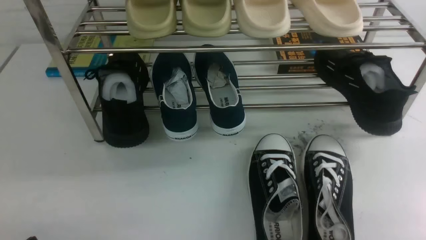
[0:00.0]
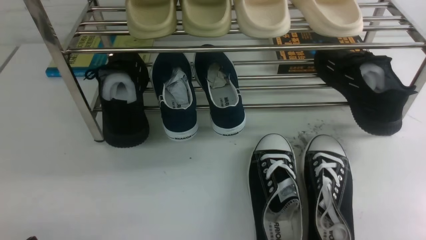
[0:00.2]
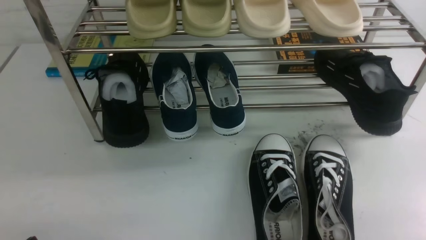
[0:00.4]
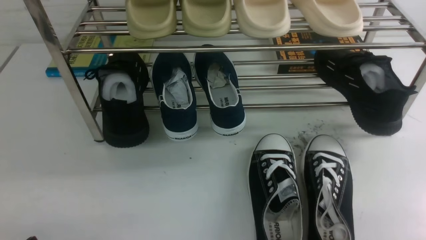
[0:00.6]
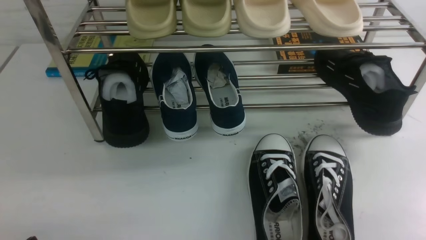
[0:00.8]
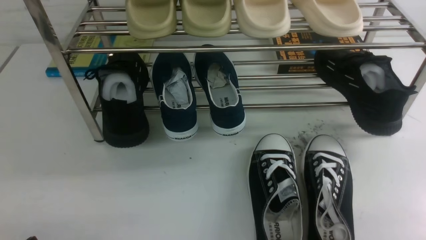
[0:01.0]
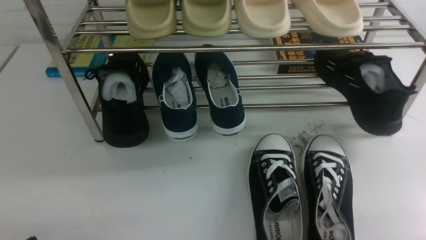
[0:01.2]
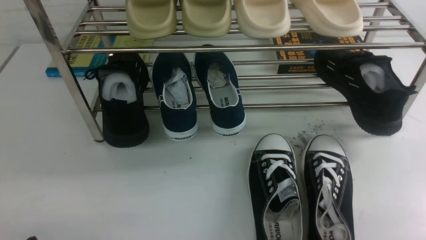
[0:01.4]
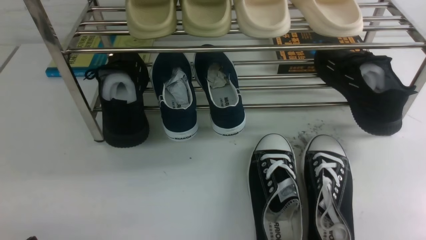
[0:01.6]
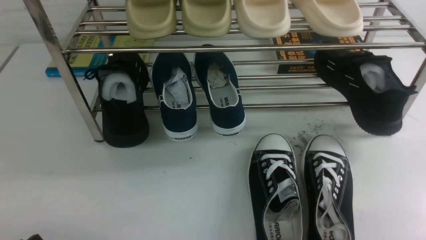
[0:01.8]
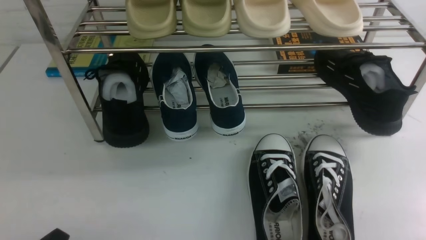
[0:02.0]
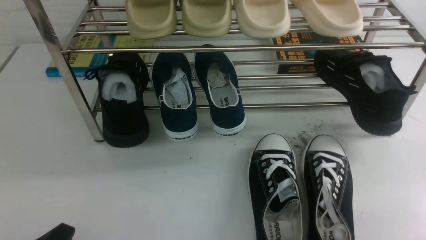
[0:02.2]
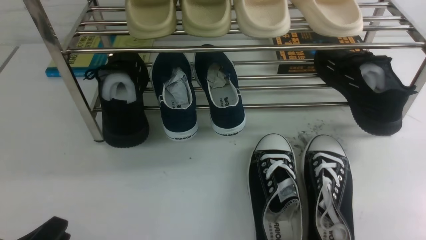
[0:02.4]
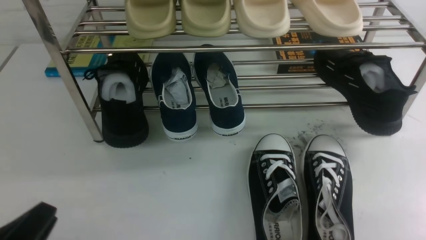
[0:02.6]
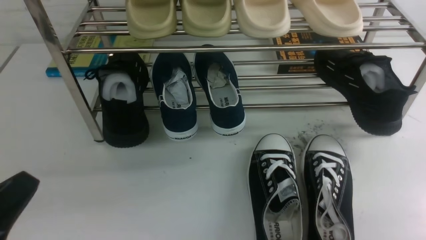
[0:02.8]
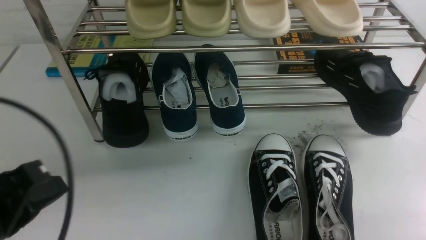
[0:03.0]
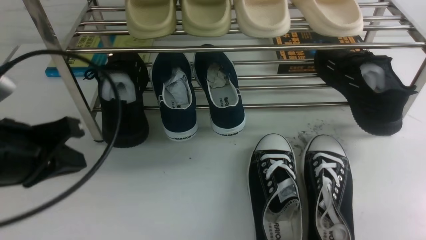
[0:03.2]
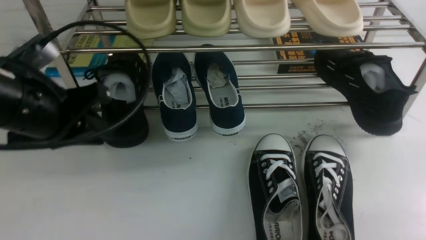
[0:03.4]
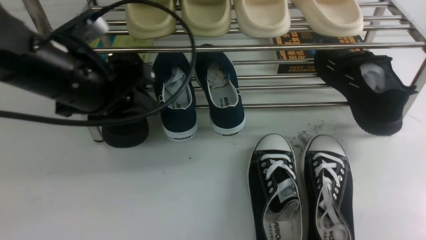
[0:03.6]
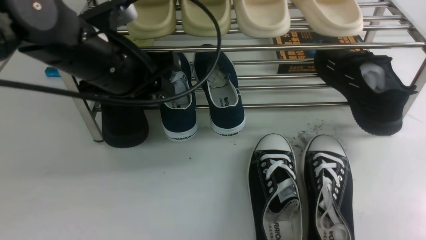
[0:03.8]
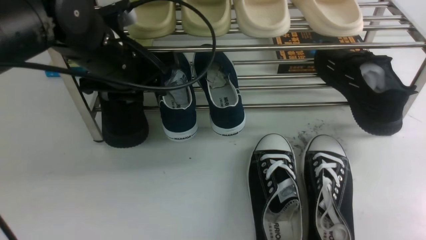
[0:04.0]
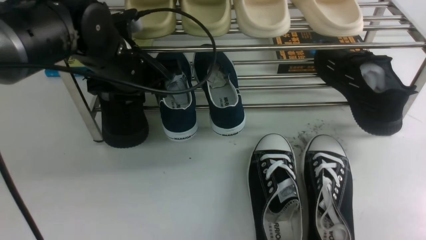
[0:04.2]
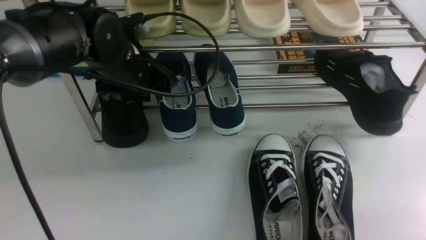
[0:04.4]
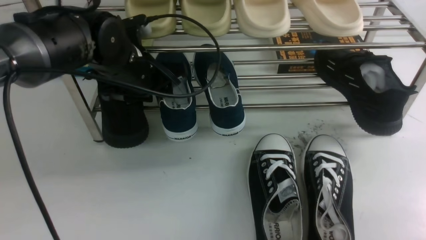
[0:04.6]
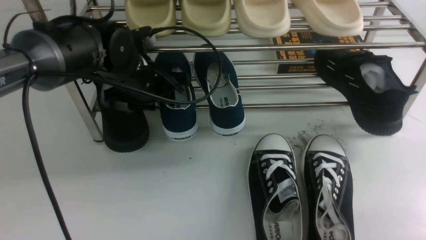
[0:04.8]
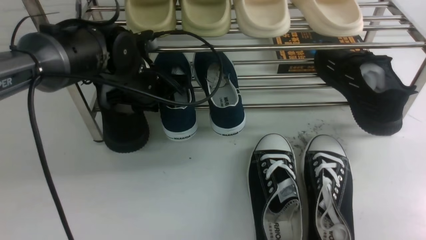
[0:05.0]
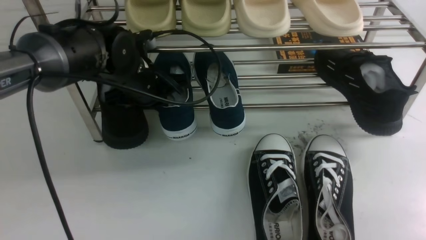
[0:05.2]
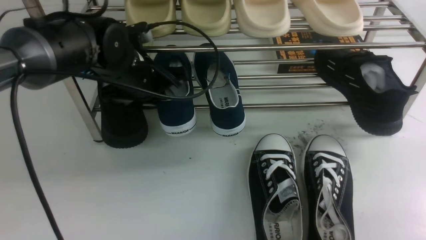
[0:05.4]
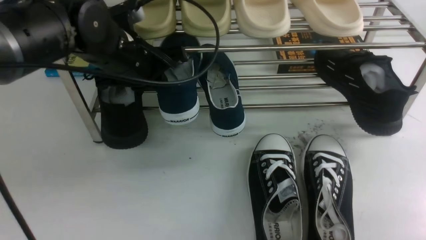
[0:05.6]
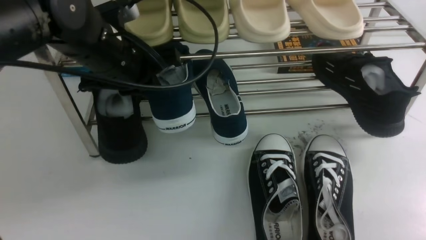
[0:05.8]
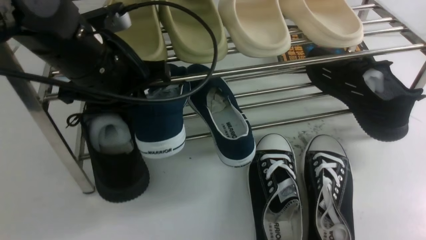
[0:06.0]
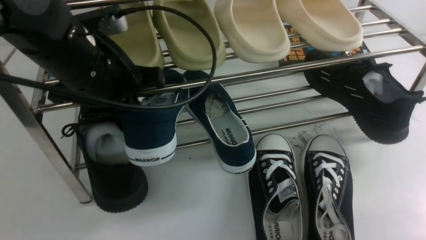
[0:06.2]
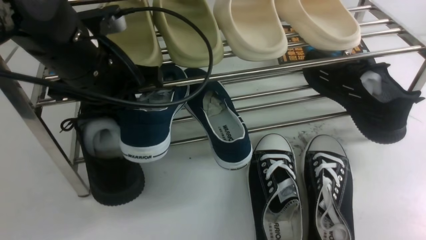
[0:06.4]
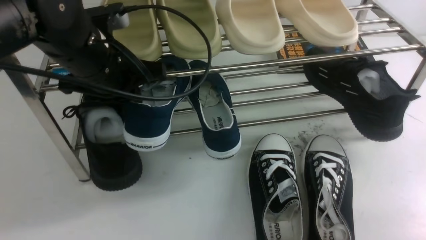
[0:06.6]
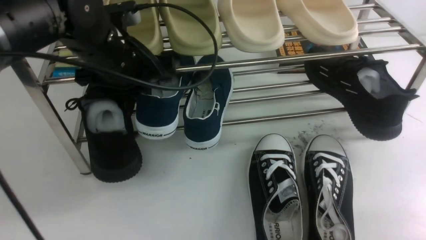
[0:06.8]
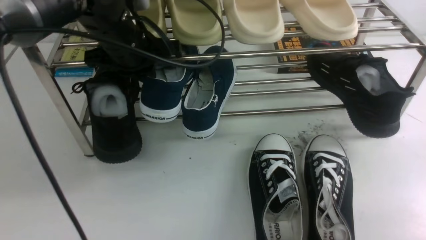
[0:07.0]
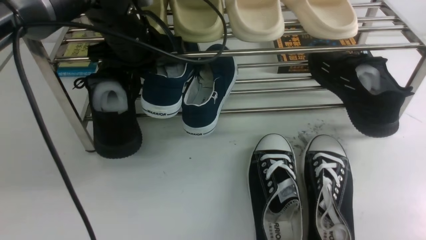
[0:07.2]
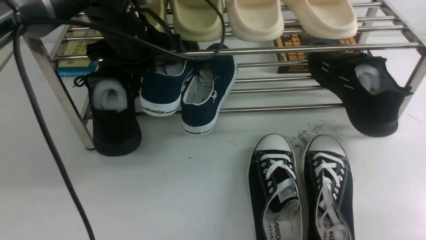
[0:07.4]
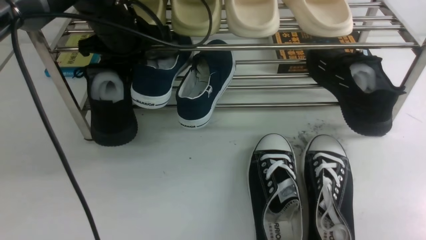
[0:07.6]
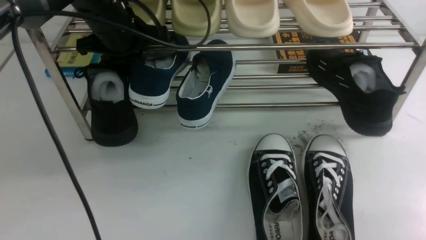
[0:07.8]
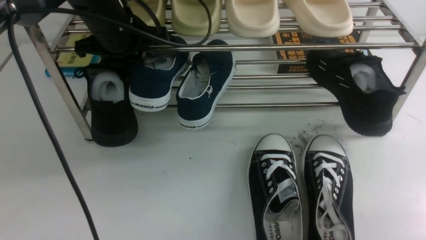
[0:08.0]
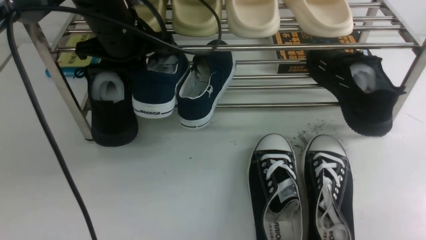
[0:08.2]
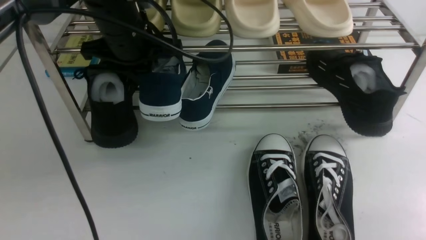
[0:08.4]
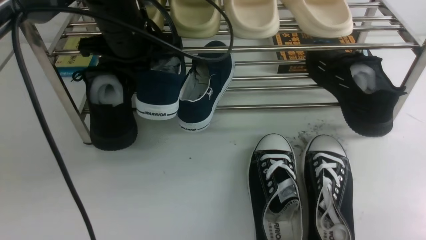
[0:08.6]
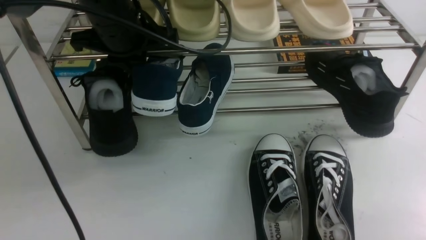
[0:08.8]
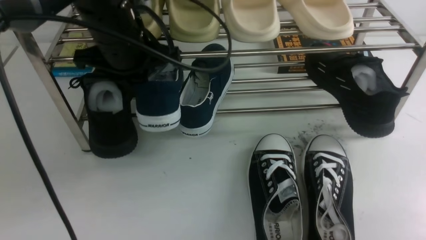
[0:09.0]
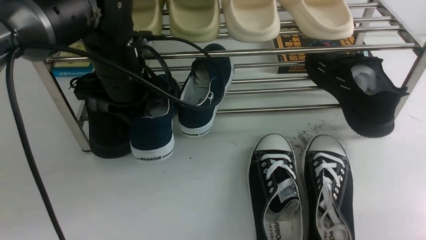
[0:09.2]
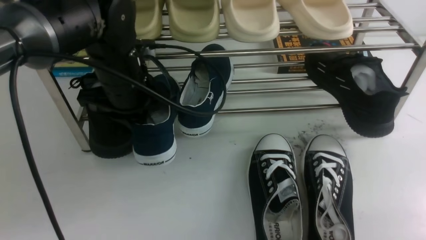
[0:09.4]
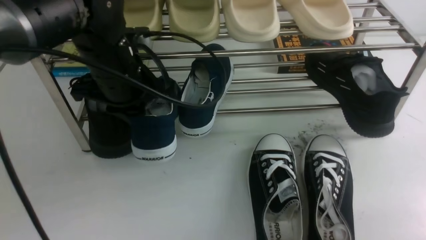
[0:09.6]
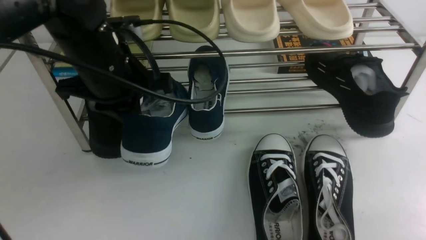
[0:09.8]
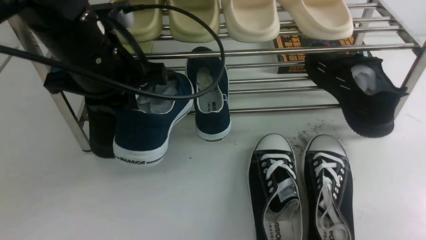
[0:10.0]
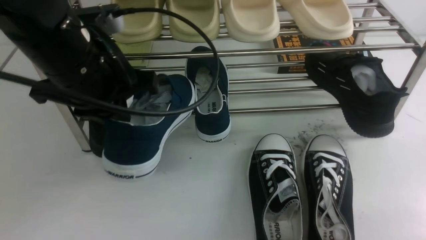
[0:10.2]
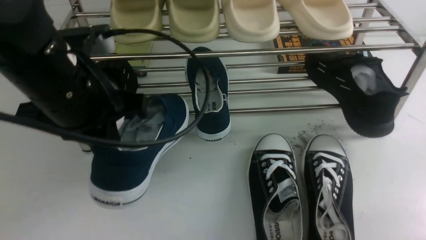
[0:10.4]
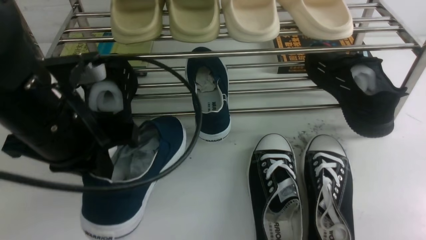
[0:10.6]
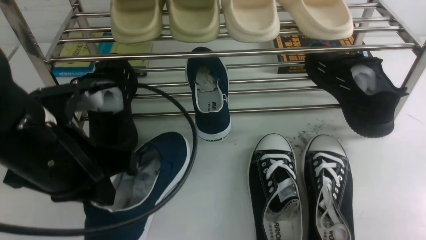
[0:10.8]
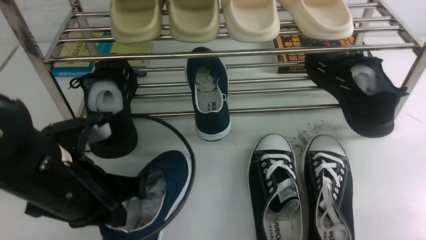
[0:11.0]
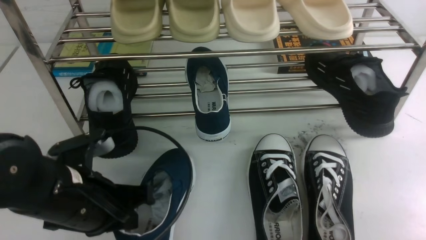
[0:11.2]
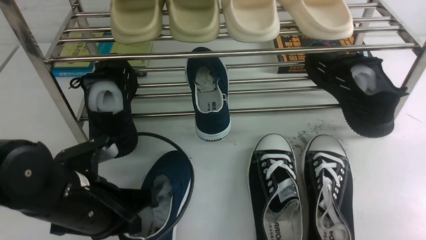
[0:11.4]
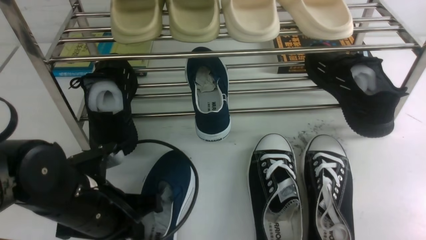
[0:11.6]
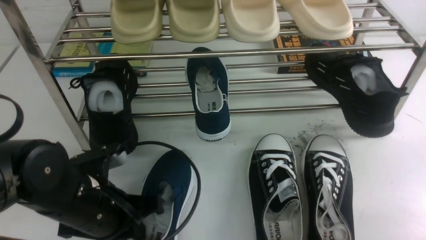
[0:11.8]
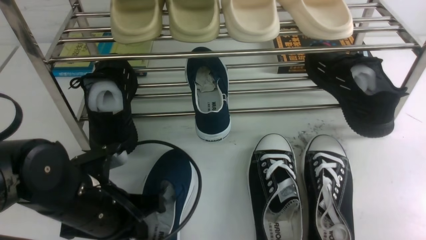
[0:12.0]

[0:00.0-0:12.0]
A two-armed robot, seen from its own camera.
Step, 0:00.0 to 0:05.6: use the left arm to clamp a shoe on the left side of the shoe rack.
0:00.0 to 0:01.6: The two grippers keep their place.
0:01.6 to 0:03.0: The left gripper is displaced upward and forward by roughly 15 cm, and closes up.
0:03.0 to 0:04.4: The left gripper is displaced forward and to the right by some 25 cm, and opens up.
0:04.4 to 0:06.0: The left gripper goes roughly 10 cm backward and upward, and closes up.
0:06.0 to 0:07.6: The left gripper moves forward, approximately 10 cm.
0:07.6 to 0:09.0: The left gripper heads backward, covering some 5 cm.
0:09.0 to 0:10.4: The left gripper moves backward, some 10 cm.
0:10.4 to 0:12.0: The left gripper goes roughly 15 cm downward.

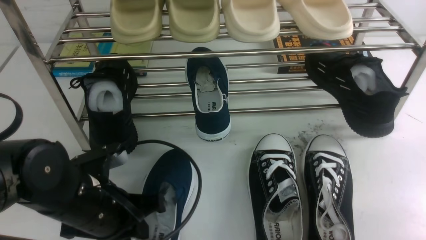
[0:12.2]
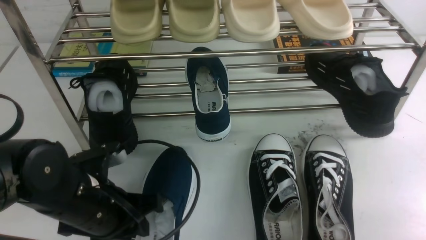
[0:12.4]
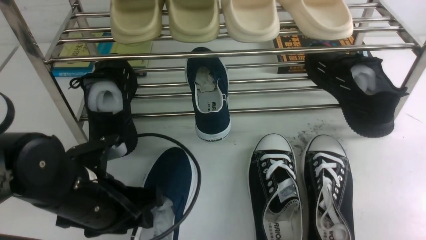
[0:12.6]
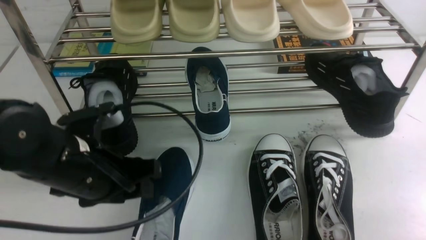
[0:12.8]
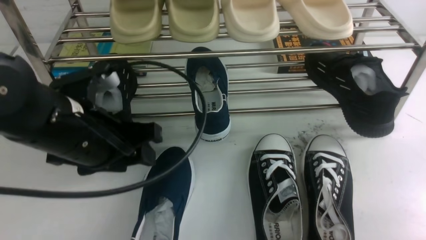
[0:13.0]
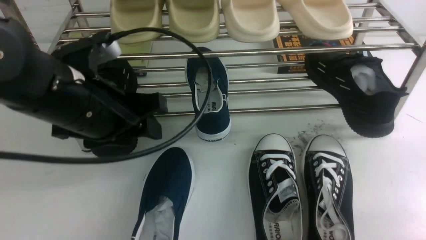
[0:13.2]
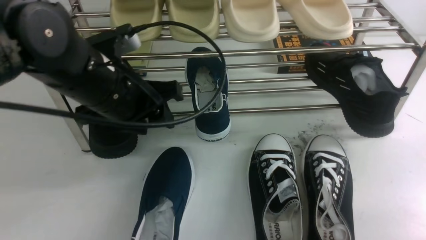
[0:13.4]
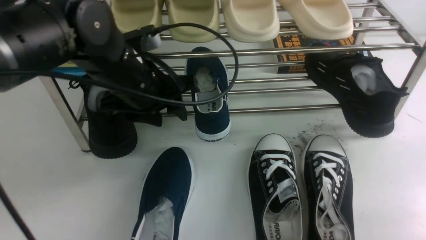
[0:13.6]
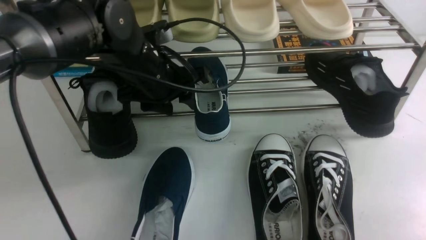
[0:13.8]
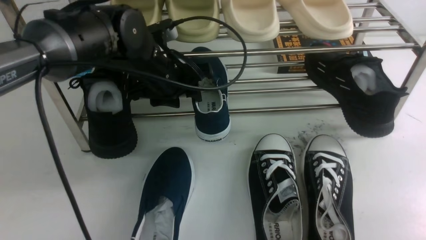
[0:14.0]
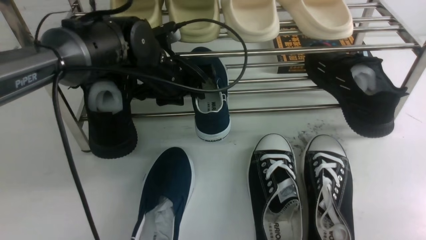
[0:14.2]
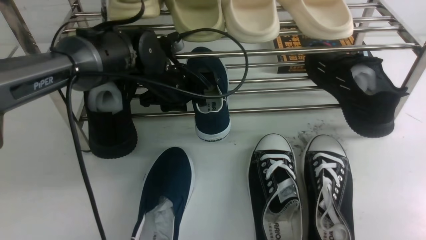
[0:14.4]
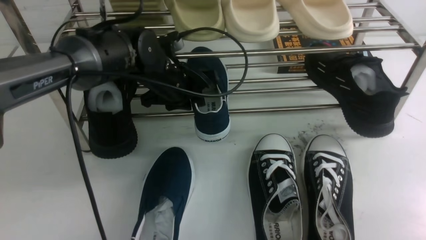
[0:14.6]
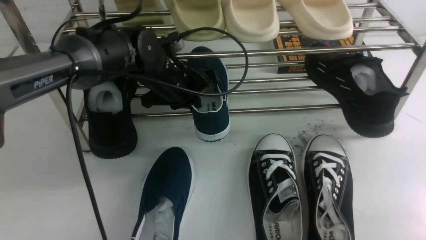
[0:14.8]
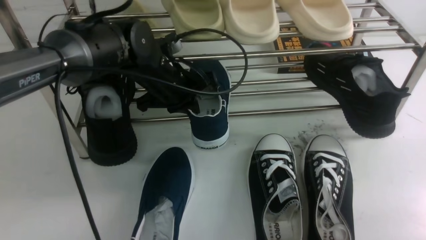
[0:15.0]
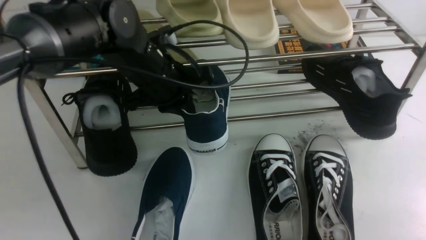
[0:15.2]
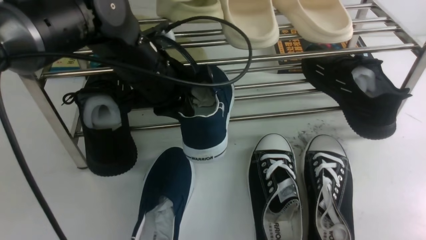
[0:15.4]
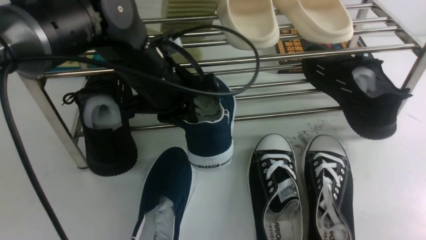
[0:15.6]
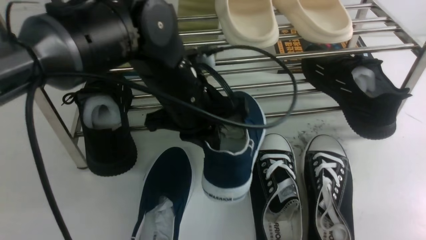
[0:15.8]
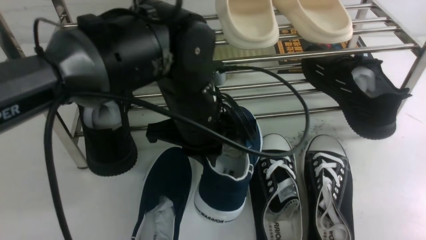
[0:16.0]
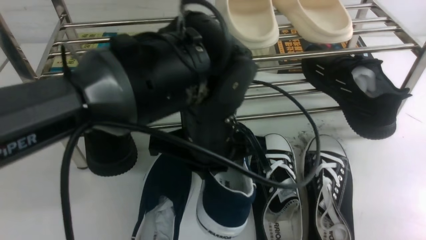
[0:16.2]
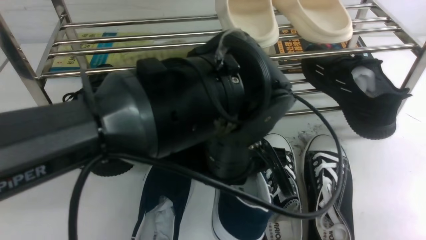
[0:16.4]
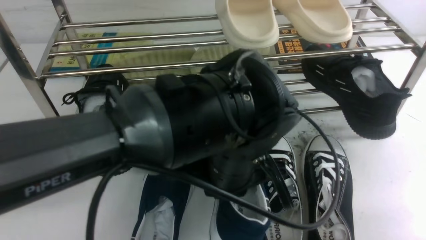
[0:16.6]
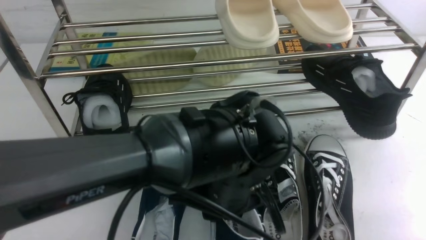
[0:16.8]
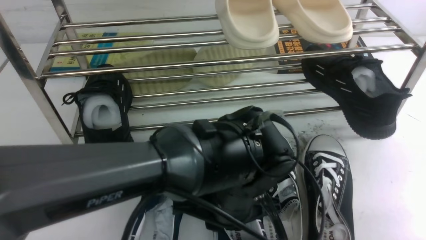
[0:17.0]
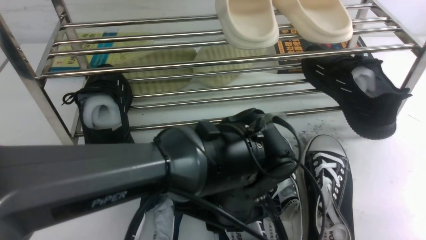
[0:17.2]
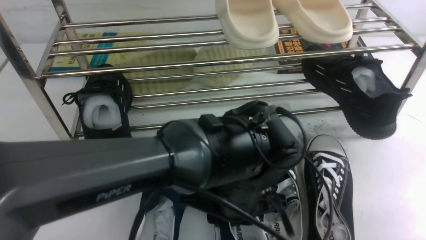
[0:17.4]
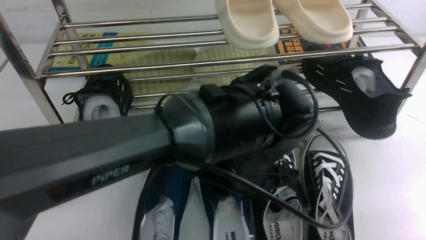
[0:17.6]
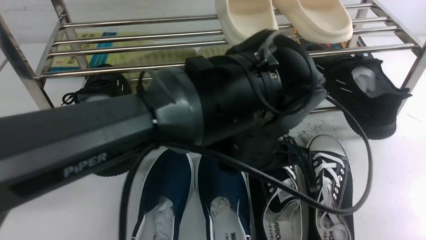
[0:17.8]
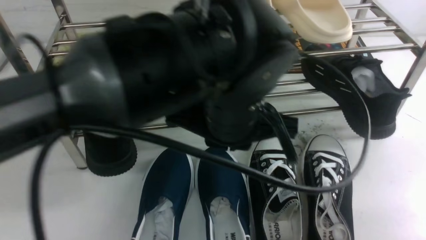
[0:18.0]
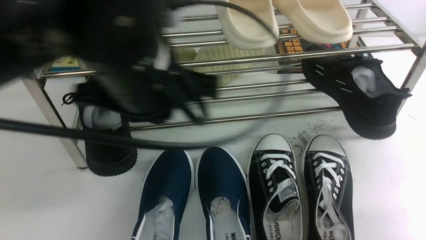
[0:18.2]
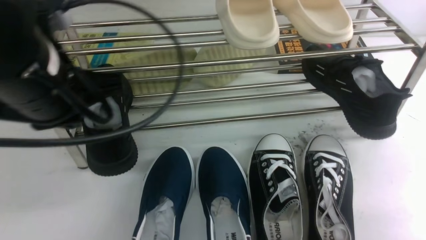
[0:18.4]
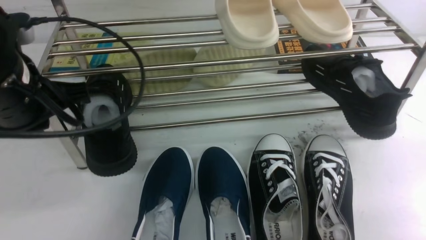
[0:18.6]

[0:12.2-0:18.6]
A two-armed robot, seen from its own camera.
Step, 0:13.0 to 0:15.6: use the left arm to clamp a shoe on the left side of the shoe rack.
Step, 0:16.0 to 0:17.8: Use your left arm to remove the clamped shoe from the shoe rack and put it down.
0:12.2 to 0:13.8: The left gripper is displaced forward, upward and to the right by some 20 cm, and opens.
0:13.8 to 0:15.4: The left gripper closes its fingers.
0:15.4 to 0:17.0: The left gripper heads backward, to the right and downward, covering roughly 20 cm.
0:17.0 to 0:18.6: The left gripper travels to the left and upward by approximately 25 cm, and opens, then closes again.
